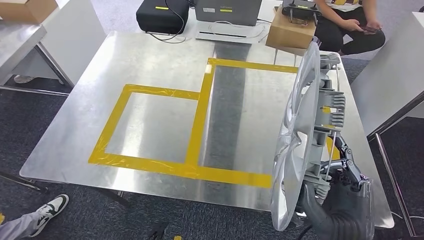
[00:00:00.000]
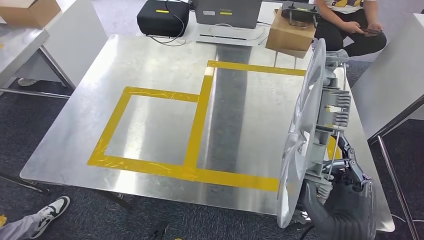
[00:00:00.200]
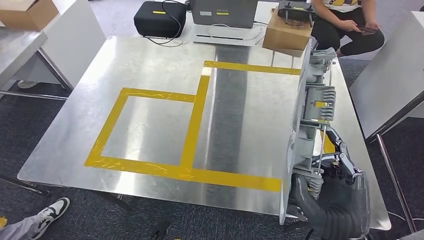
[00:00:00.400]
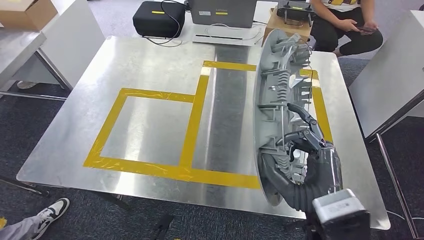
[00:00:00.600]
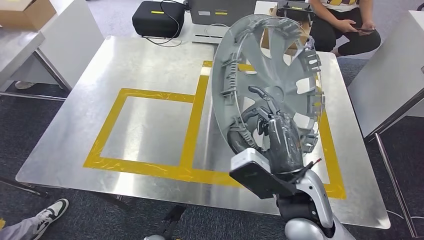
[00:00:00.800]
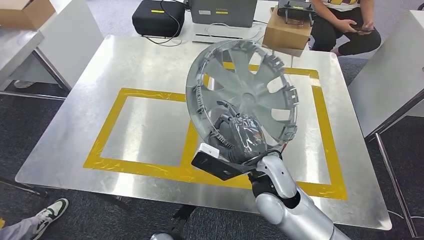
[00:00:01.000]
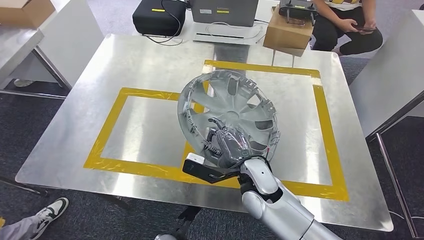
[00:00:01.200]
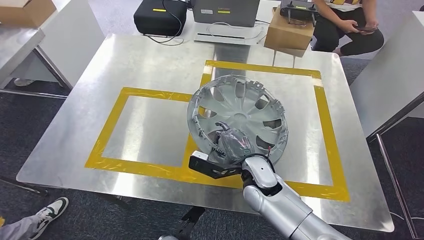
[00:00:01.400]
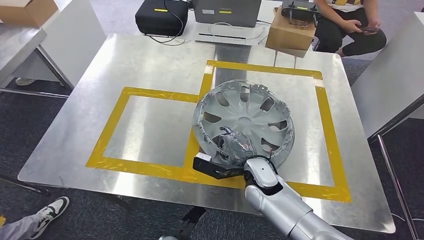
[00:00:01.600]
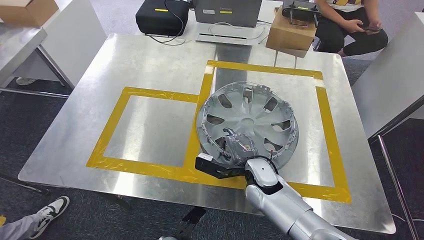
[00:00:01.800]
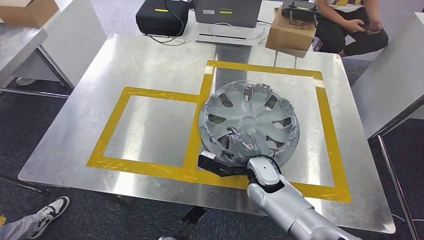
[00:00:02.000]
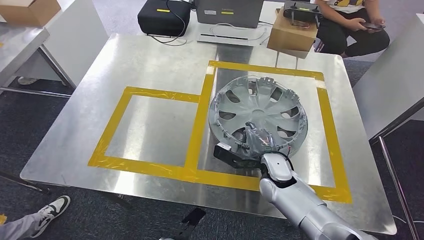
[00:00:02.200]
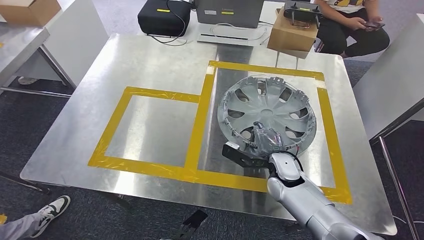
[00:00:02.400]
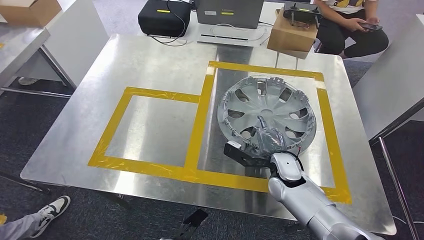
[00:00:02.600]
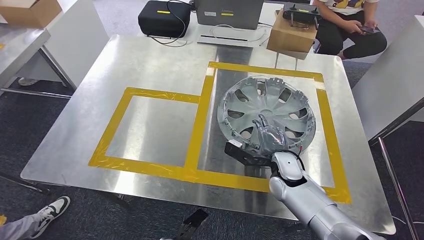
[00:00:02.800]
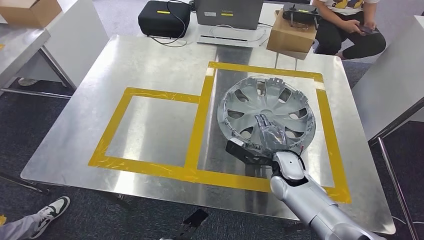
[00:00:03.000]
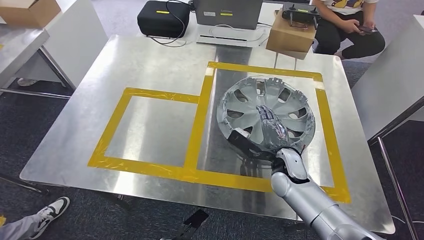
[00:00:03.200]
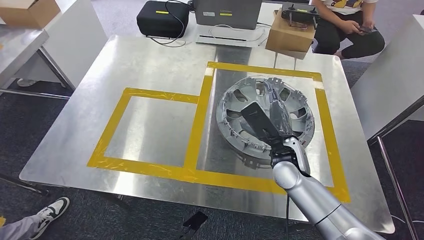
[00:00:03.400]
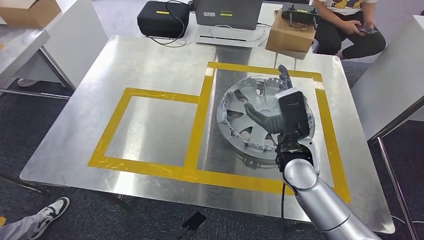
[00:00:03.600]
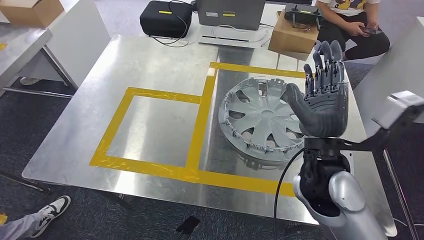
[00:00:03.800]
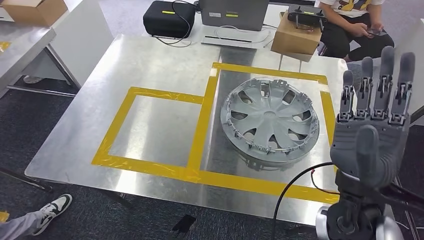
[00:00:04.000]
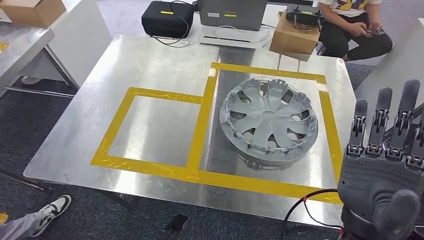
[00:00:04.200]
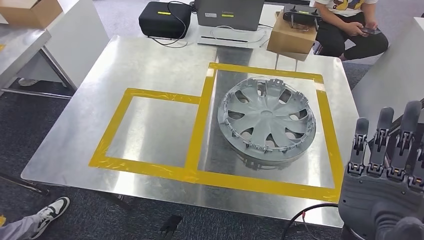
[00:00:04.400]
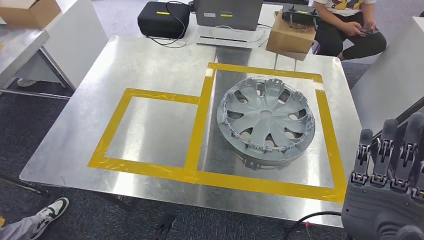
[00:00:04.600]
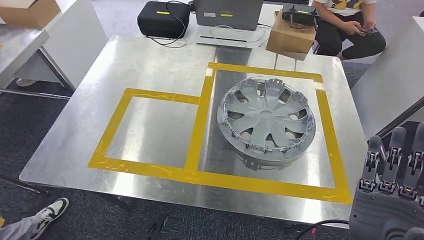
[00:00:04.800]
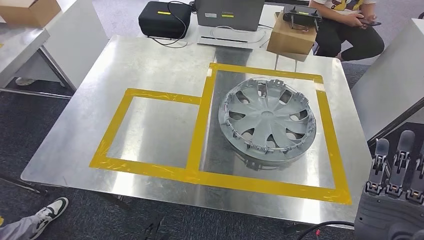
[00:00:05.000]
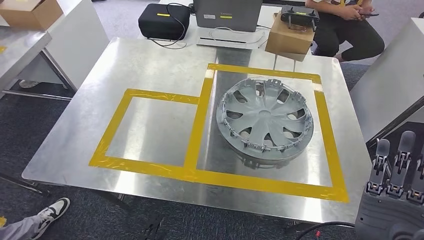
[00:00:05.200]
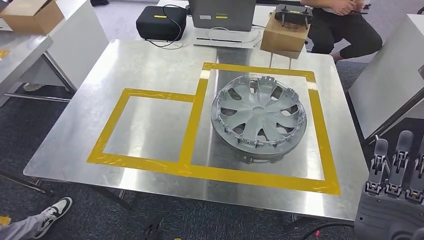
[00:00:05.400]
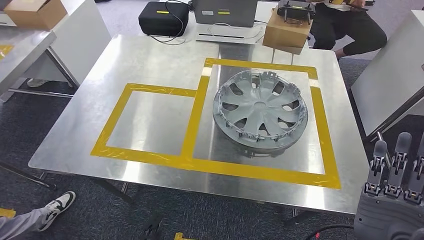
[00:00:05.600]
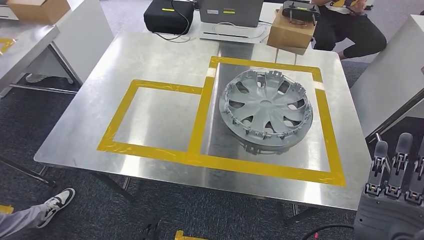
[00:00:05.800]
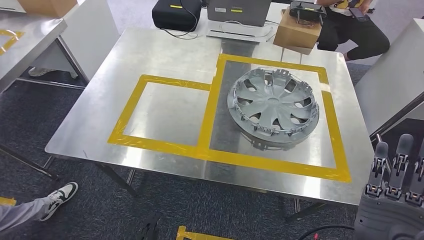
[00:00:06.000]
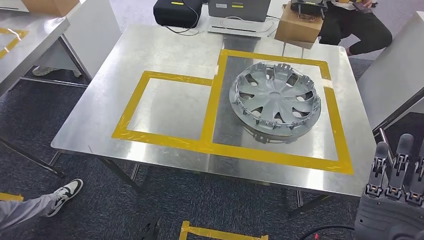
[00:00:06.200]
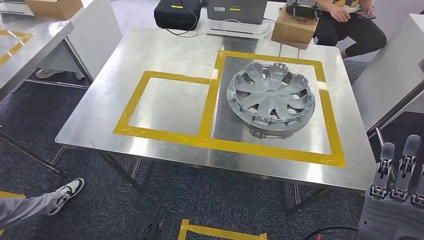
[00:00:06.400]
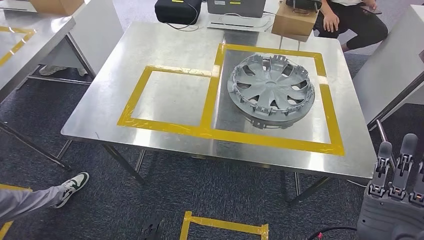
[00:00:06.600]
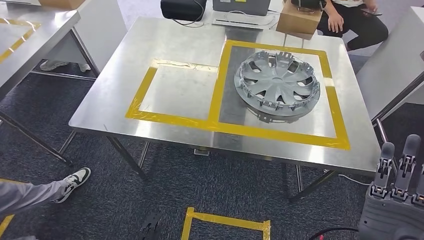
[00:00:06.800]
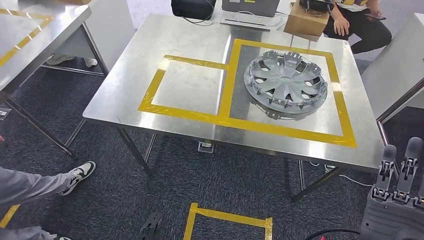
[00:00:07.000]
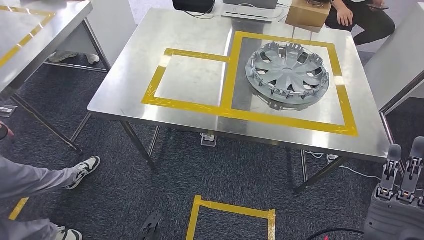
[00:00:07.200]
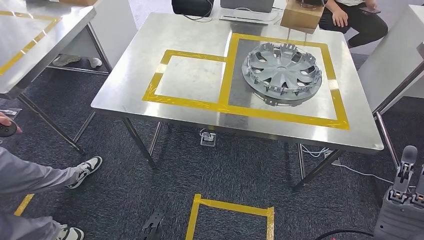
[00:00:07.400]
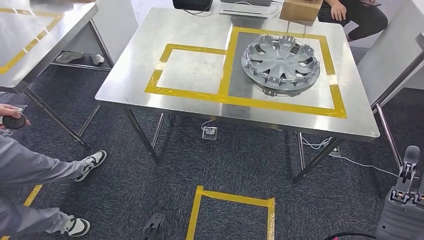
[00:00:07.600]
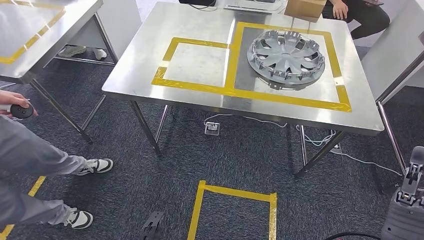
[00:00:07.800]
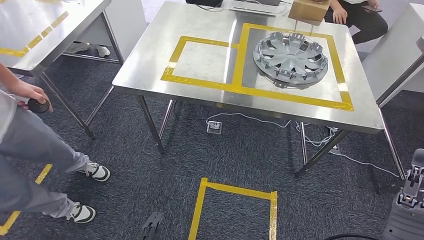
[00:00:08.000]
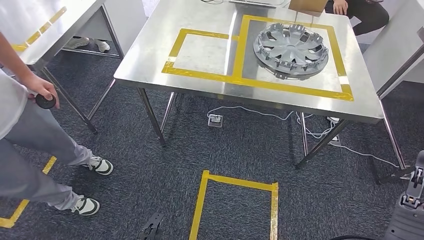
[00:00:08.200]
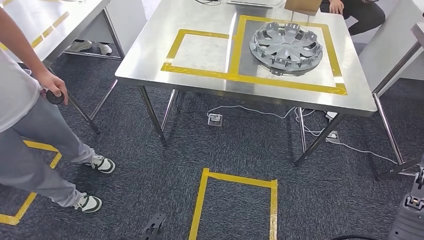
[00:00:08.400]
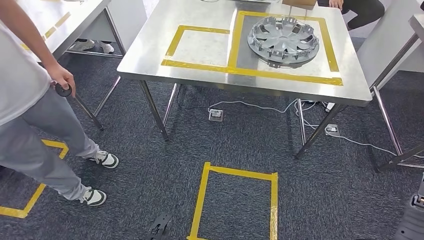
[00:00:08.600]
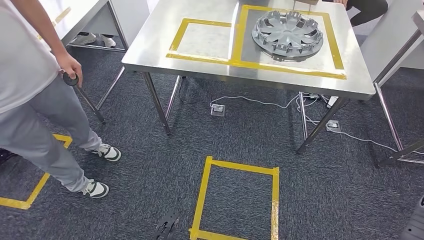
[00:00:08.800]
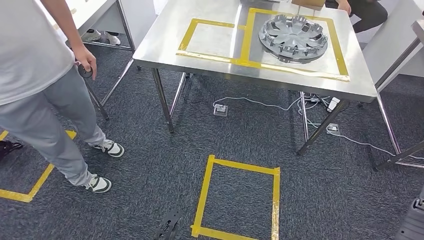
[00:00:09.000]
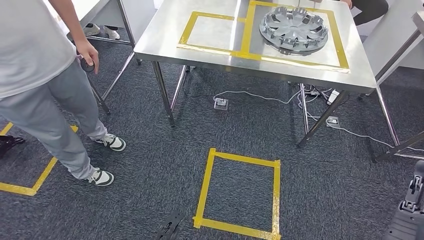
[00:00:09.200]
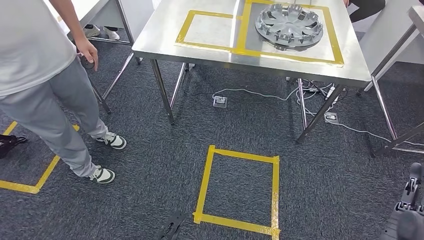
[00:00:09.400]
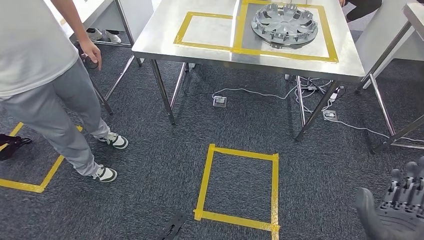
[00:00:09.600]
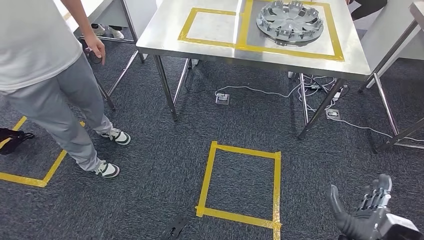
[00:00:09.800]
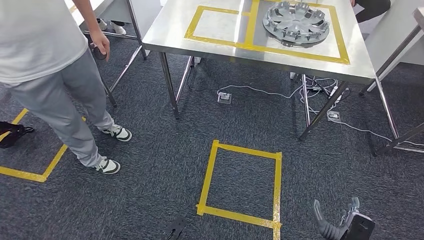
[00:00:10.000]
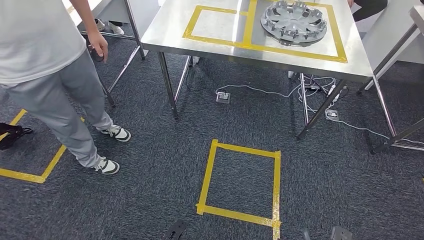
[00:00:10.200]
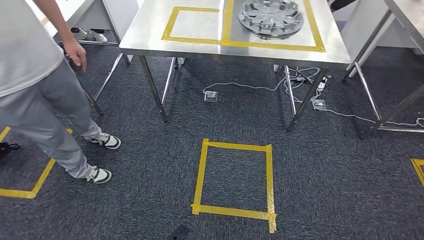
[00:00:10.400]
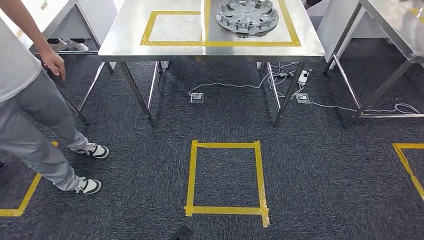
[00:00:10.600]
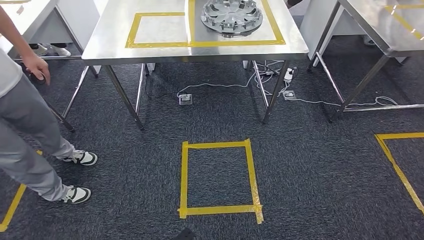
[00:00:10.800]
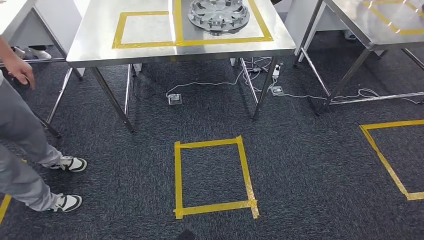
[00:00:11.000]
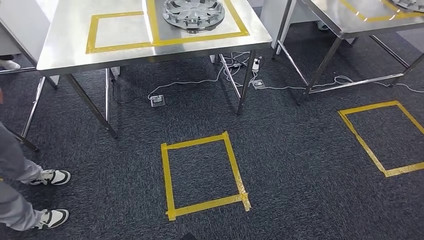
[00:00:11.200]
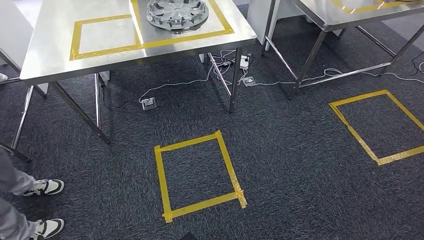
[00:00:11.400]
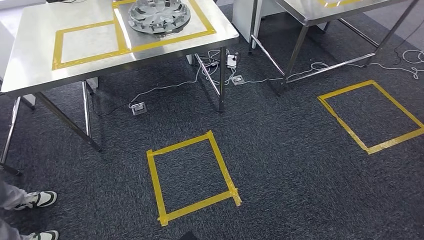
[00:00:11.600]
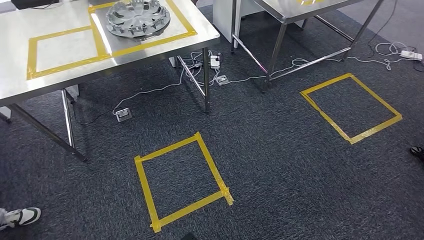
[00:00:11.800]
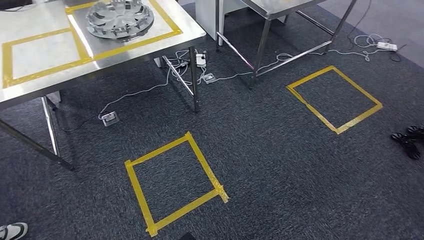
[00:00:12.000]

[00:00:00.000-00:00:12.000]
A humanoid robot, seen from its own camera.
Step, 00:00:00.600 to 00:00:05.000: Insert the small component into the corresponding slot on the workbench.
00:00:03.000 to 00:00:04.400: The right hand goes roughly 25 cm backward and upward; the left hand moves some 5 cm.

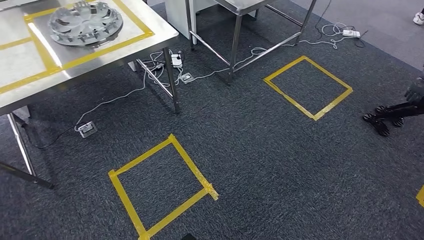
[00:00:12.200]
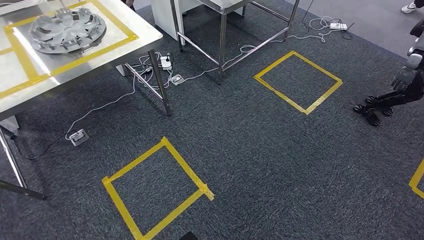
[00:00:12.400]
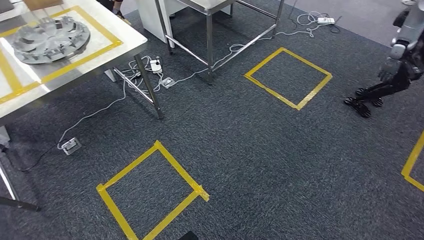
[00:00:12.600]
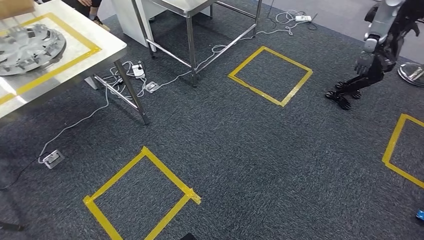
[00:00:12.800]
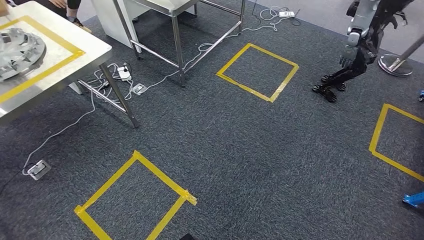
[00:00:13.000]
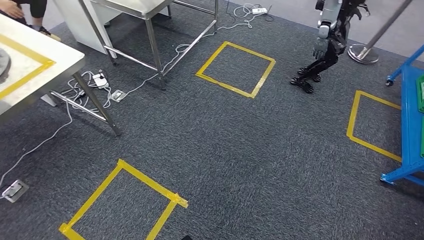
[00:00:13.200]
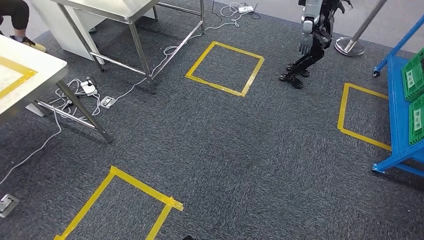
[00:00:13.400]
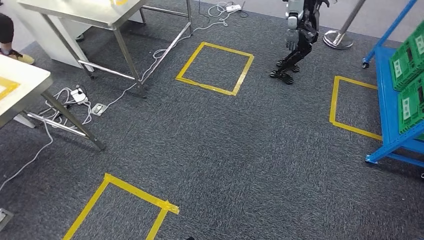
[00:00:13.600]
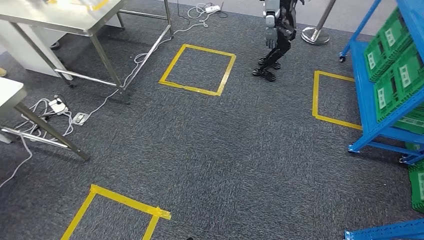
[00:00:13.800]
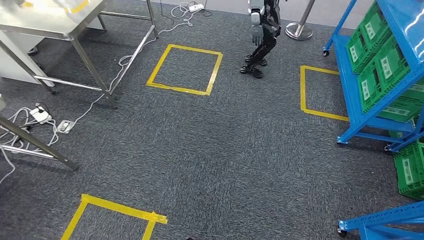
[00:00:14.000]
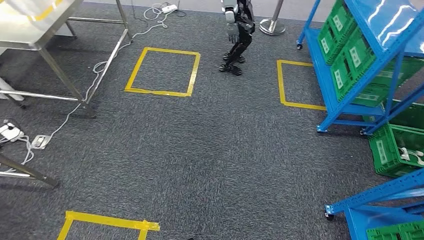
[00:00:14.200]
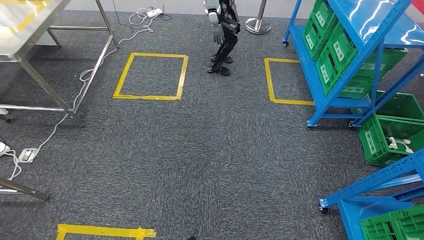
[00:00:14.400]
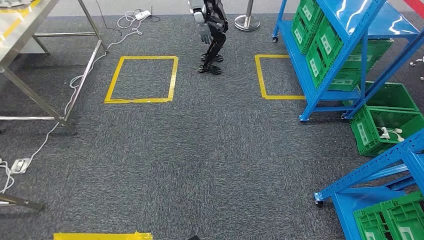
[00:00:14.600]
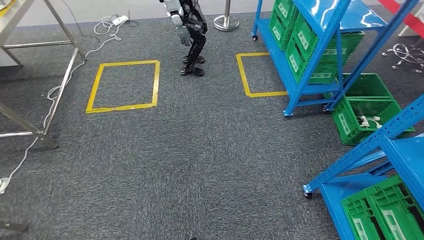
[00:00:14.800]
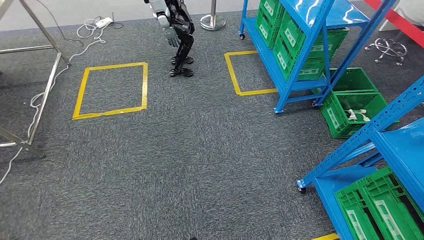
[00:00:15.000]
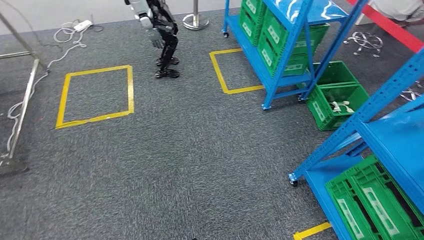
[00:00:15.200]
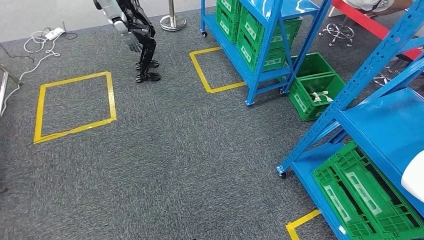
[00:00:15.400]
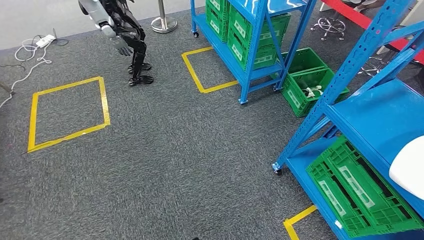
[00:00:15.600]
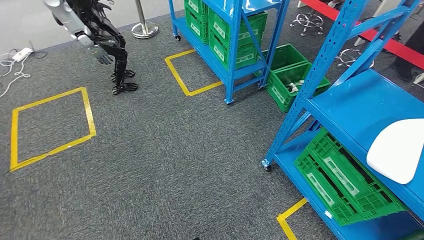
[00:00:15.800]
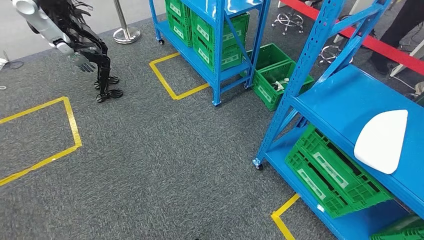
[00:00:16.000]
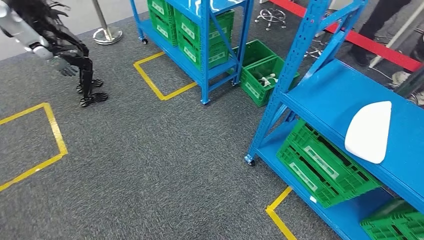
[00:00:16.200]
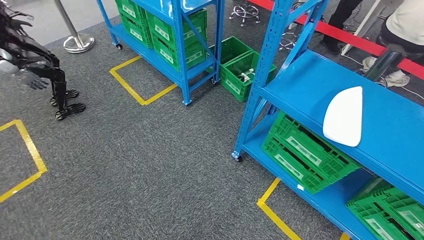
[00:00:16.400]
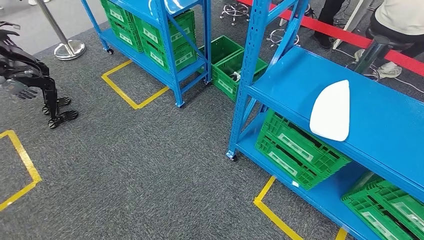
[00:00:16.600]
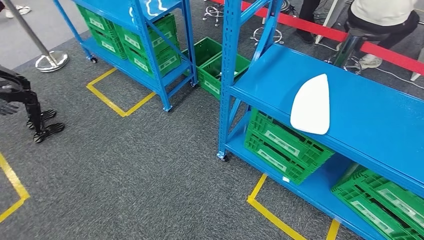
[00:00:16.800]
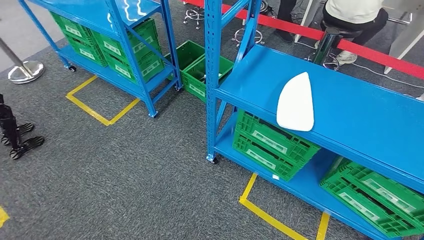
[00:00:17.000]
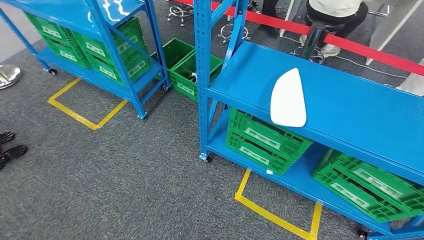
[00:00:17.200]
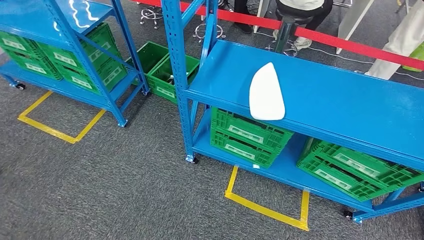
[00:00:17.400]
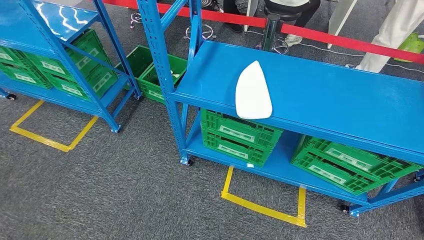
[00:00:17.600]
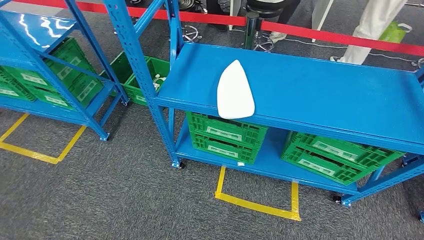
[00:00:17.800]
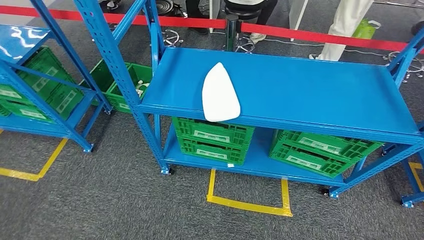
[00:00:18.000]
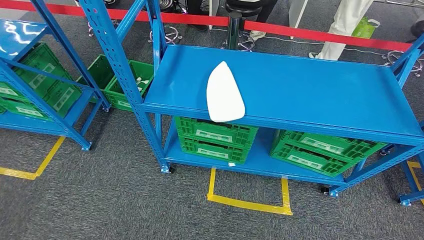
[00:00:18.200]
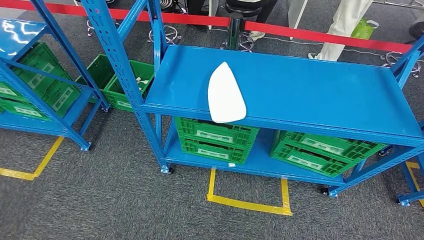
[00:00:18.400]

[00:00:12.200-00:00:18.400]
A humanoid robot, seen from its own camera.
Step, 00:00:12.200 to 00:00:18.400: Return to the initial position at the workbench.
